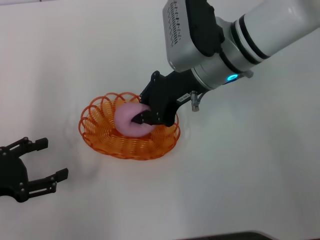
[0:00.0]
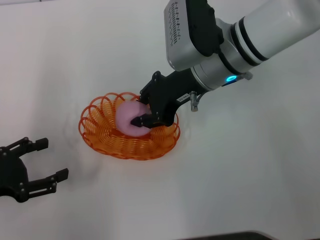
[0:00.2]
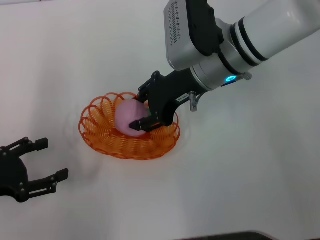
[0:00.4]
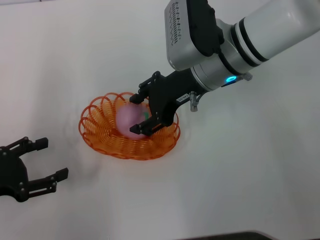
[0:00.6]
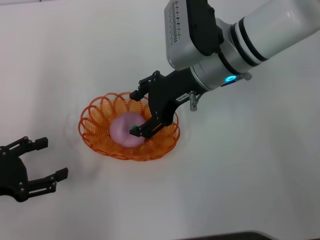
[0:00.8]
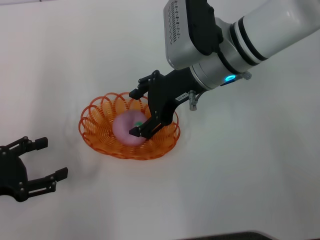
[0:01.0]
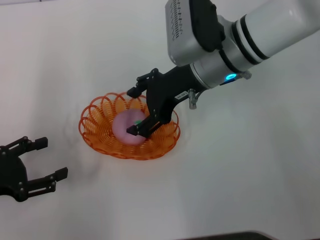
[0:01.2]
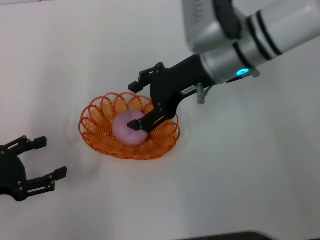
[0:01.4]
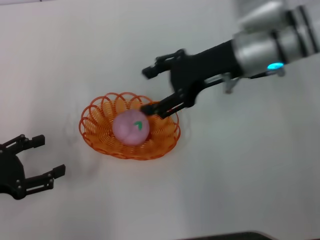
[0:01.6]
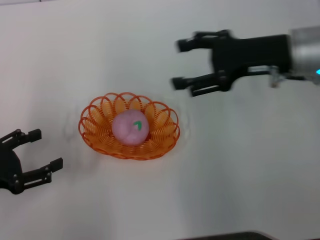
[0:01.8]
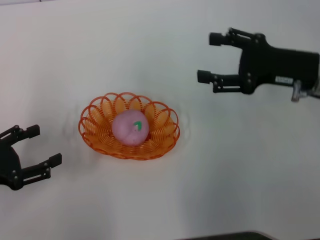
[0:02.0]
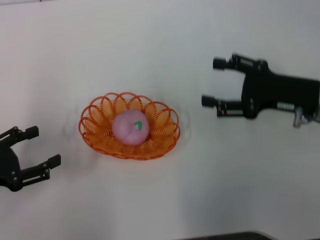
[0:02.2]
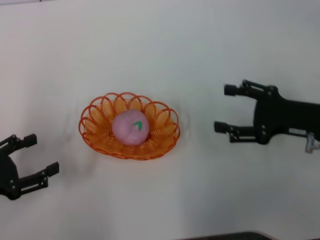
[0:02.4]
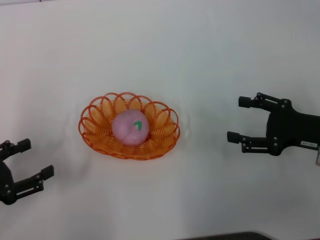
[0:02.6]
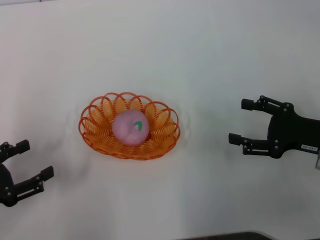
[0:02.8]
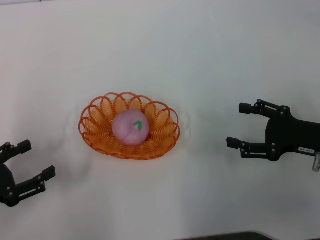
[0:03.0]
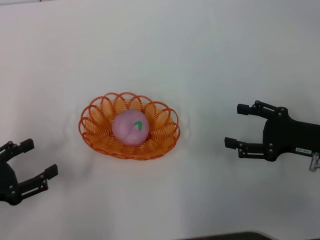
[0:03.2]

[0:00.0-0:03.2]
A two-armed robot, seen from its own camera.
0:00.0 to 0:01.6: The right gripper travels to the right by approximately 5 cm, and opens up.
0:01.6 to 0:03.2: The right gripper shifts about 20 cm to the right, backward and downward.
